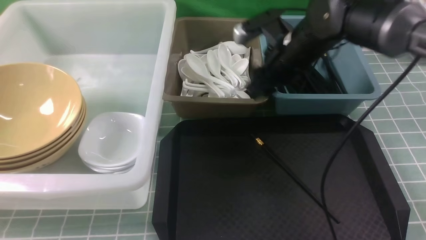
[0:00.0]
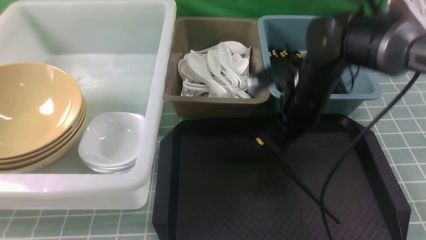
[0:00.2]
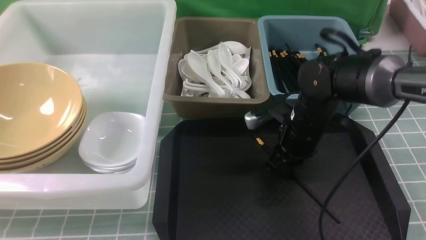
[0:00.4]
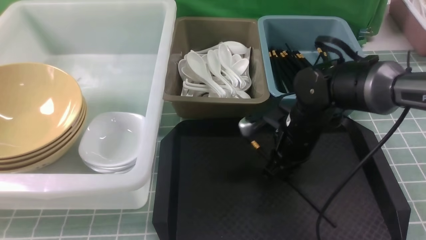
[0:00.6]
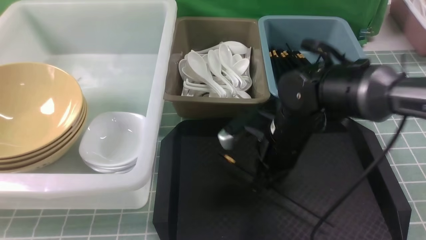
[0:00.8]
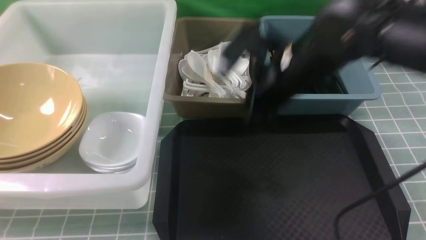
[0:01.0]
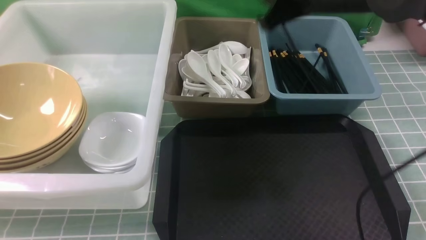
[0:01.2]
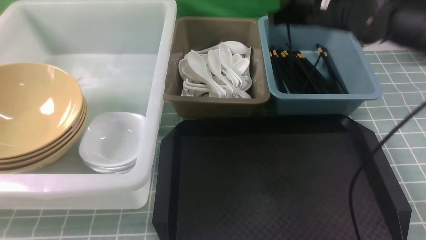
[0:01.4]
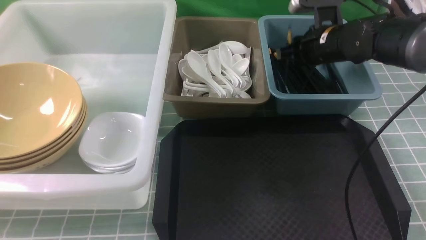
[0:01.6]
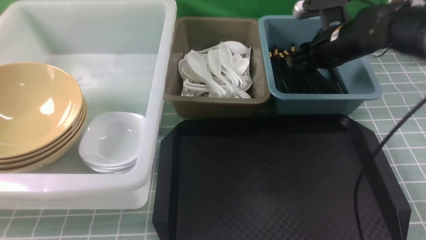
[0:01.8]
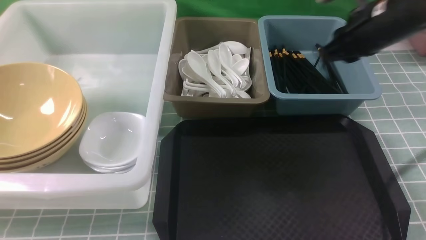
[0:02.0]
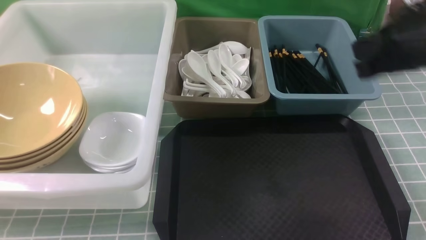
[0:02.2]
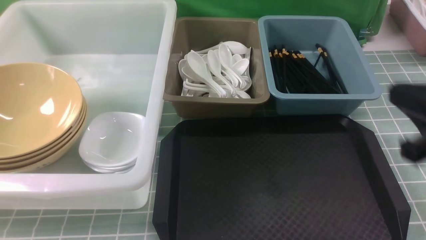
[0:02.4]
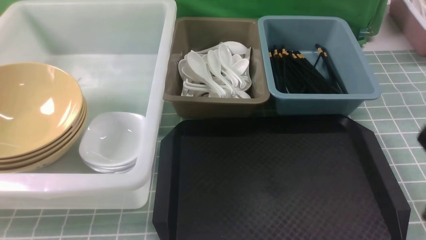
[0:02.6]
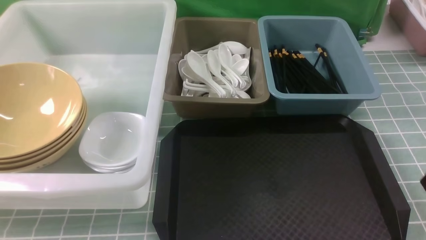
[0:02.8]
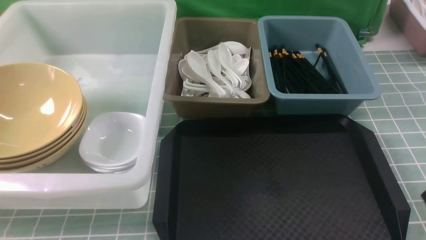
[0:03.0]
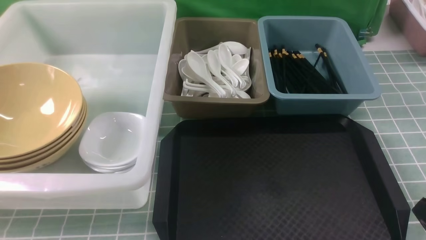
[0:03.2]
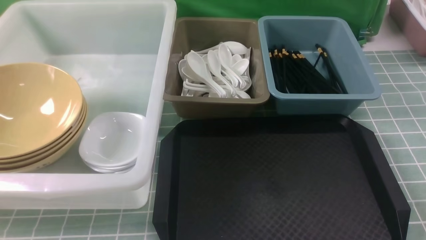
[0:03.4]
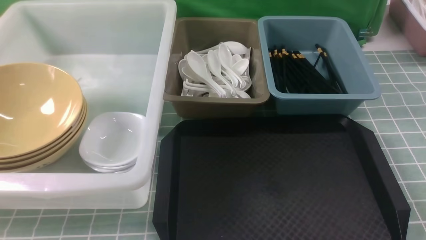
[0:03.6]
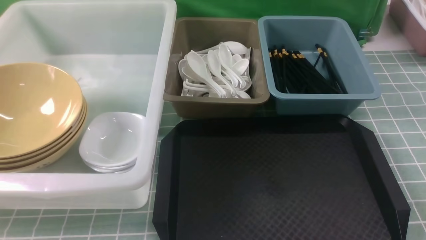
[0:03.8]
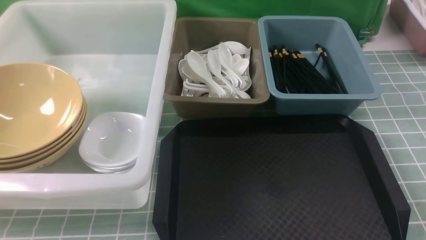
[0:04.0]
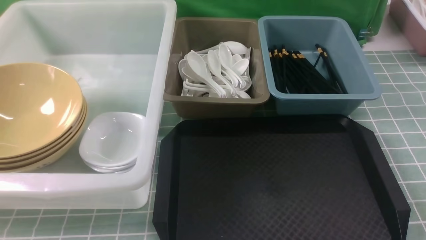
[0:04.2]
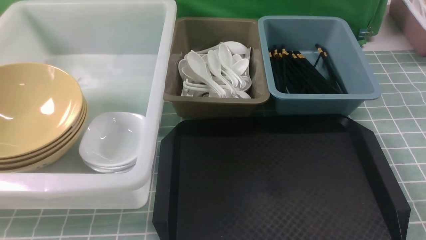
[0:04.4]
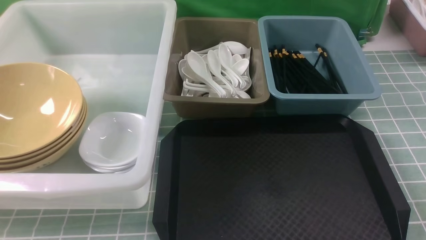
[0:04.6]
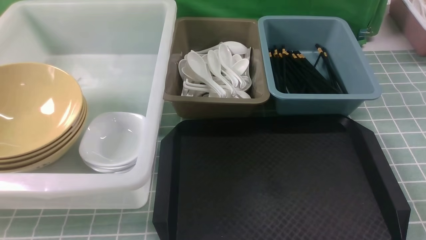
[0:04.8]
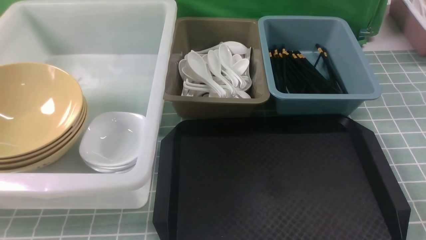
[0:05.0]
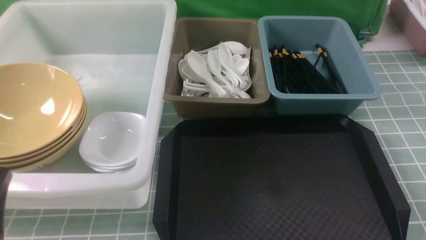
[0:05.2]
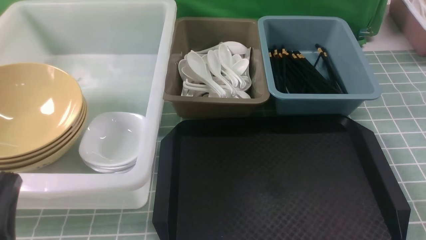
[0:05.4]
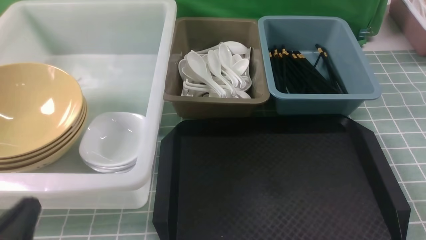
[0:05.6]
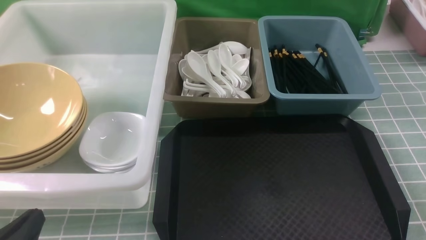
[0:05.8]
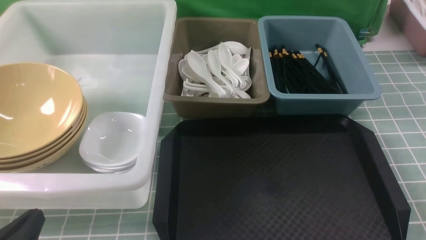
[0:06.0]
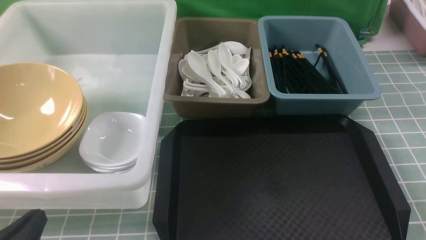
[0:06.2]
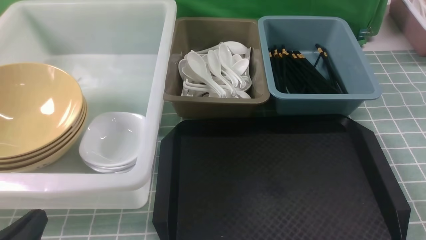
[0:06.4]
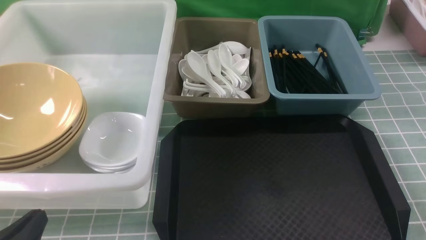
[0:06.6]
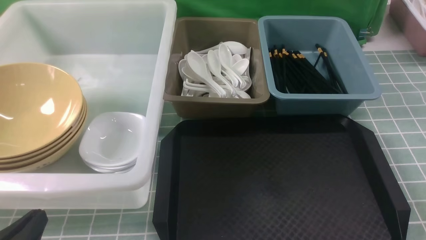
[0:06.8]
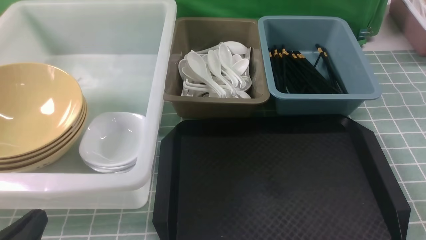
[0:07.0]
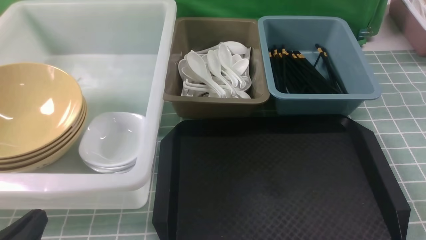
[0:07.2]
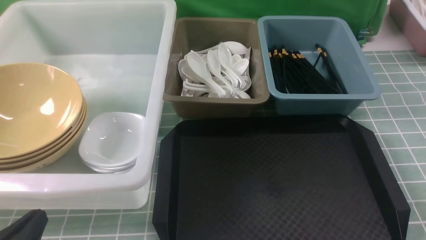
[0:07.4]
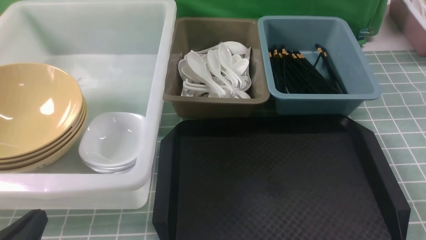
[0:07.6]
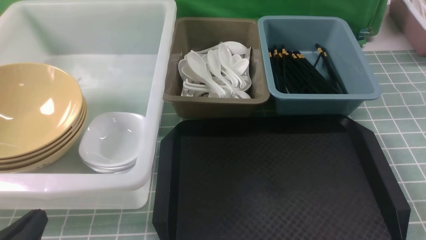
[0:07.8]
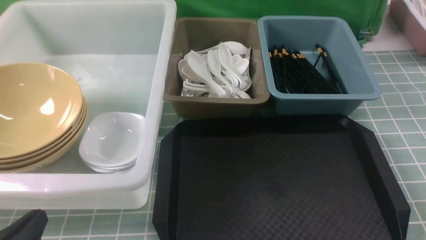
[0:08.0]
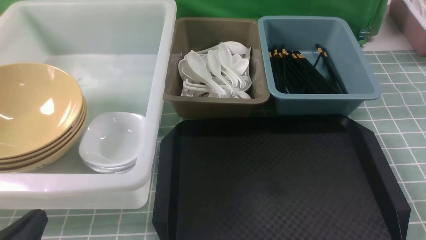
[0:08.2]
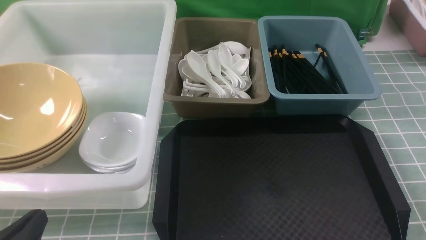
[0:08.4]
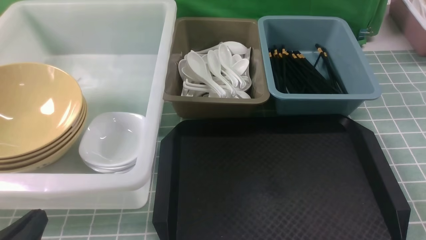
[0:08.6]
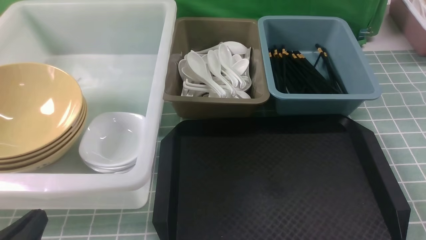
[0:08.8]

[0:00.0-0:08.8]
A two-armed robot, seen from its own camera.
Task of the whole recording: on blue table put chopsticks spoon bowls plates into blue grey white boxes.
Step, 0:00.2 to 0:01.0: use the right arm to grab a chopstick.
Step, 0:01.2 to 0:01.6: use the right arm to put a chopstick into the small storage box on the right.
0:00.0 to 0:01.4: The right gripper moves upward, approximately 5 cm, and closes up.
0:01.4 to 0:03.0: The right gripper travels backward by some 35 cm.
0:04.4 to 0:05.8: The left gripper travels downward by about 10 cm.
0:05.8 to 0:08.8: The two grippers keep their place.

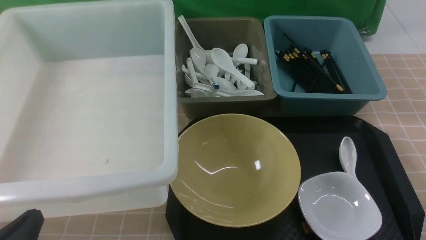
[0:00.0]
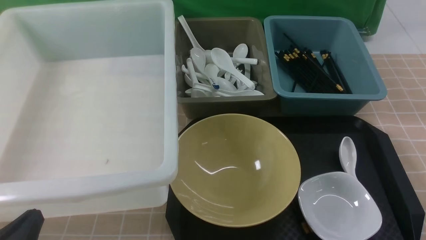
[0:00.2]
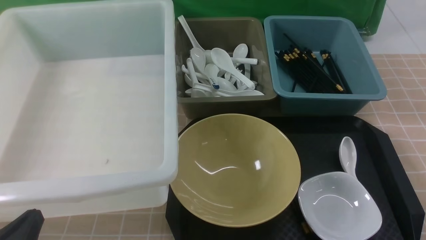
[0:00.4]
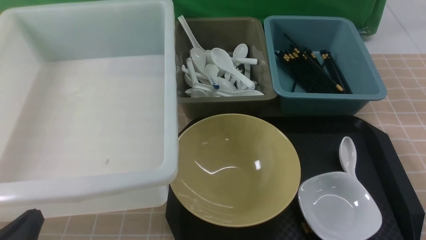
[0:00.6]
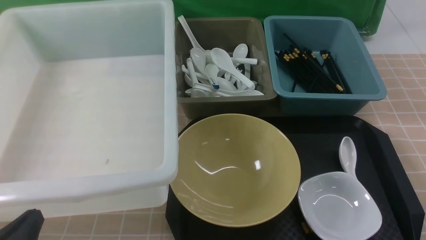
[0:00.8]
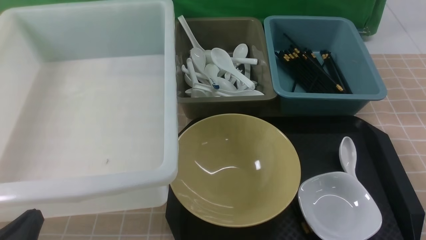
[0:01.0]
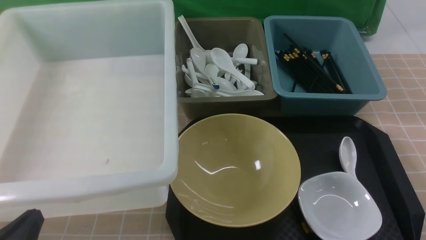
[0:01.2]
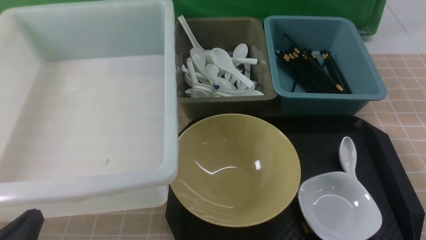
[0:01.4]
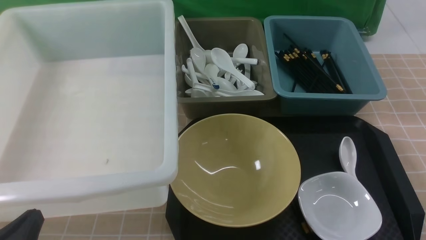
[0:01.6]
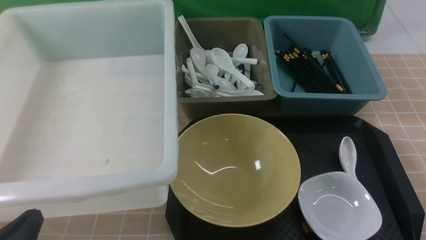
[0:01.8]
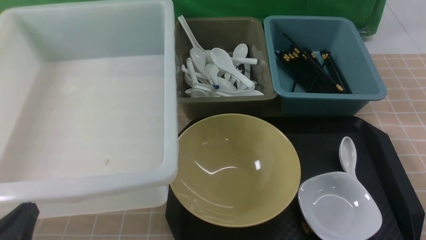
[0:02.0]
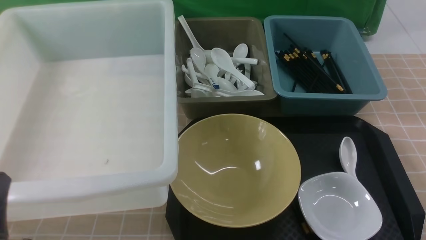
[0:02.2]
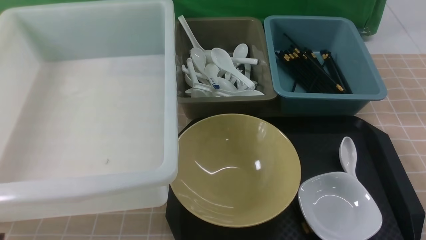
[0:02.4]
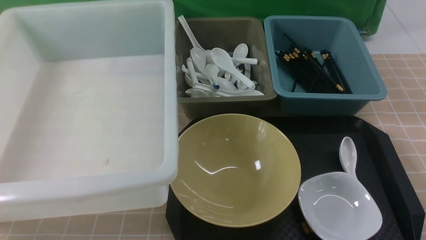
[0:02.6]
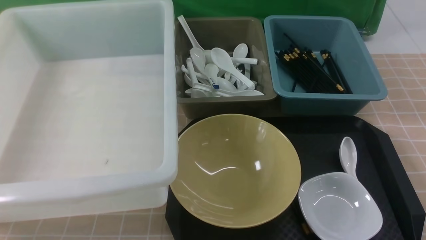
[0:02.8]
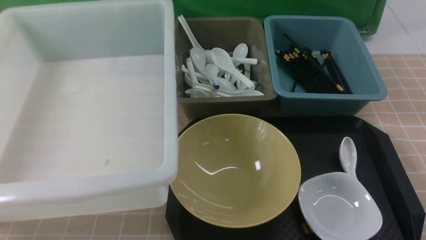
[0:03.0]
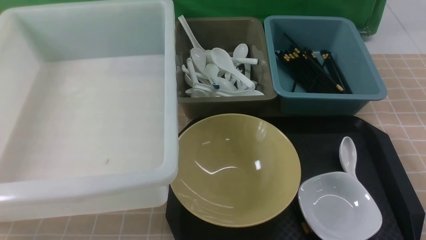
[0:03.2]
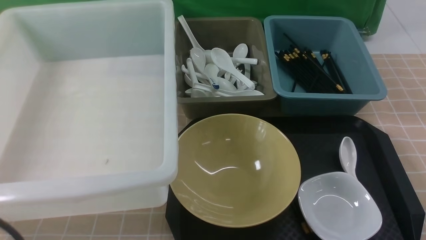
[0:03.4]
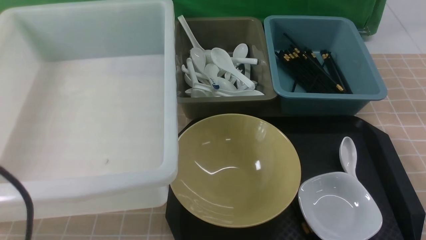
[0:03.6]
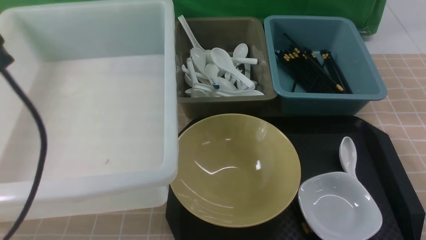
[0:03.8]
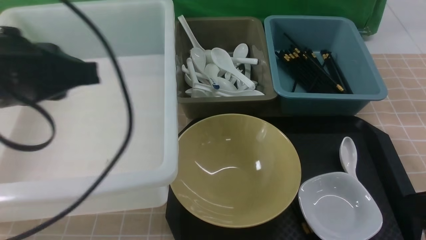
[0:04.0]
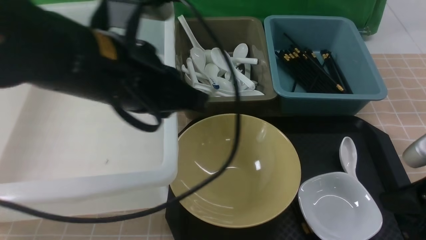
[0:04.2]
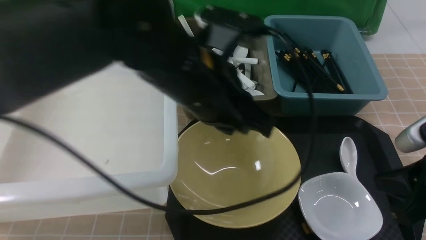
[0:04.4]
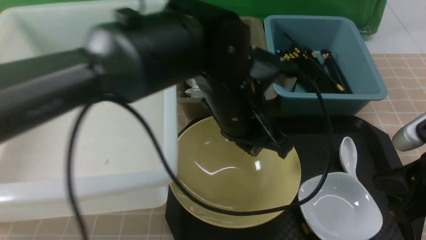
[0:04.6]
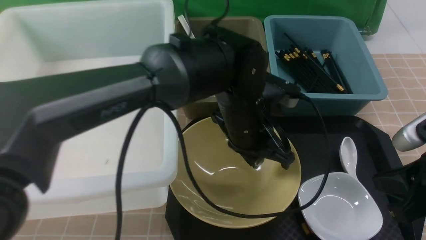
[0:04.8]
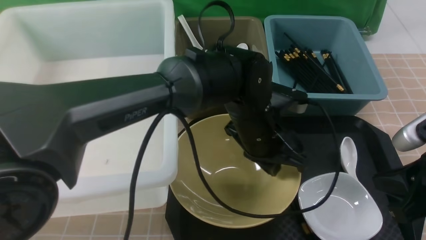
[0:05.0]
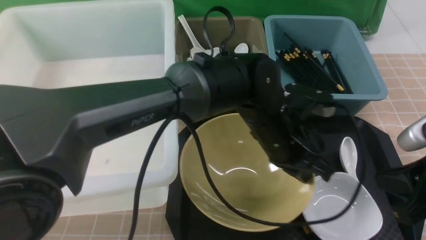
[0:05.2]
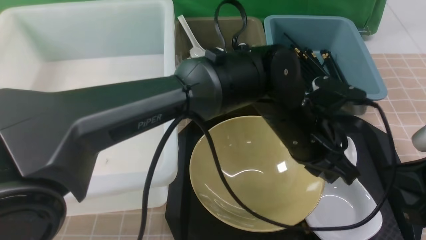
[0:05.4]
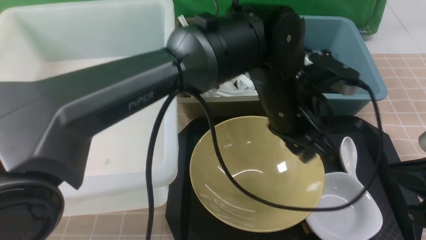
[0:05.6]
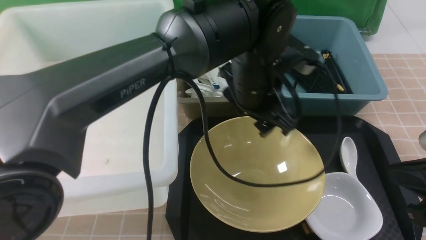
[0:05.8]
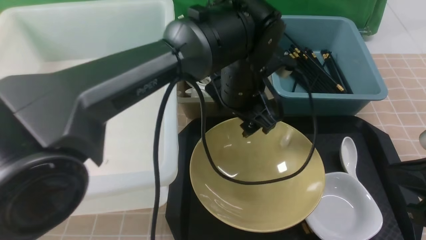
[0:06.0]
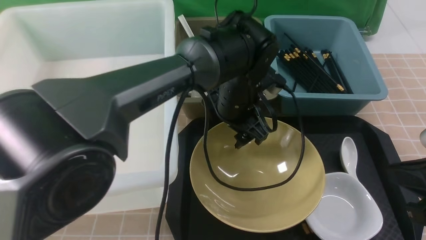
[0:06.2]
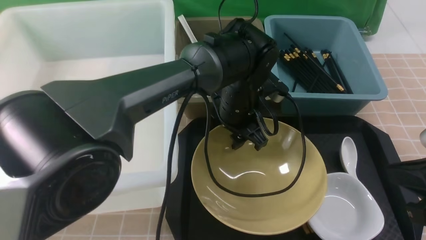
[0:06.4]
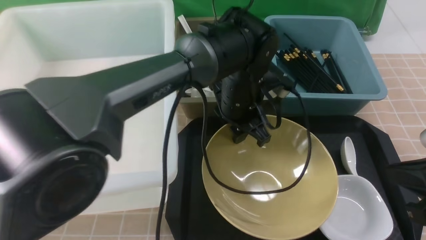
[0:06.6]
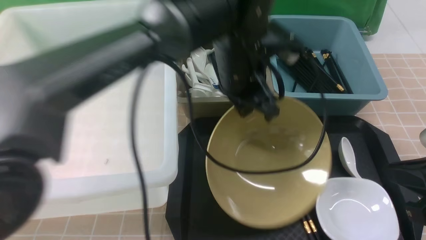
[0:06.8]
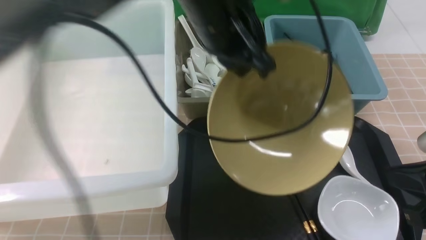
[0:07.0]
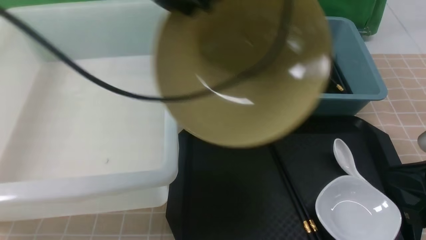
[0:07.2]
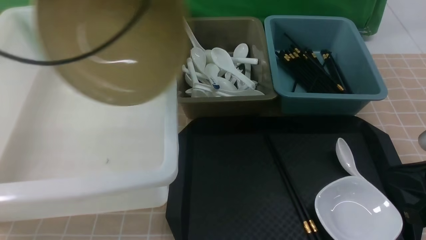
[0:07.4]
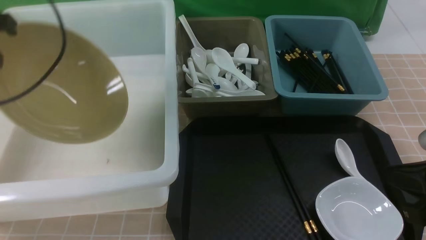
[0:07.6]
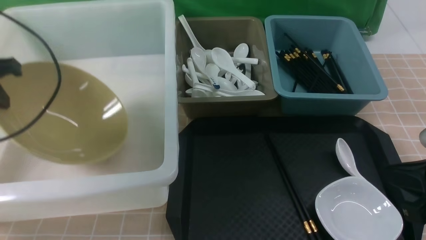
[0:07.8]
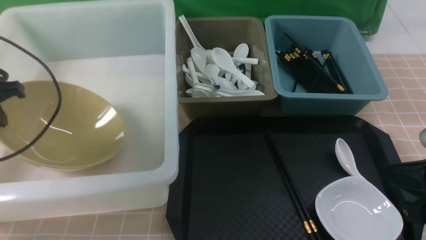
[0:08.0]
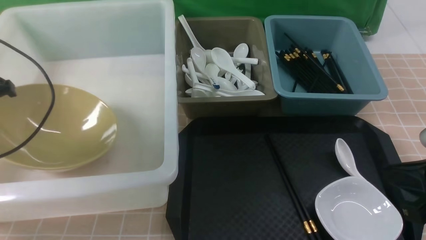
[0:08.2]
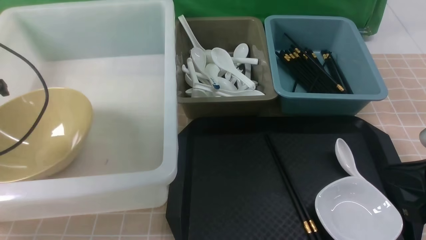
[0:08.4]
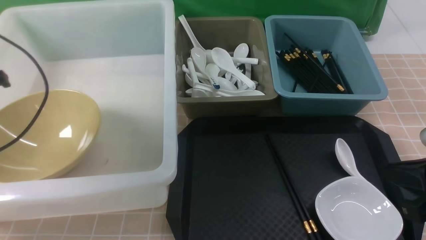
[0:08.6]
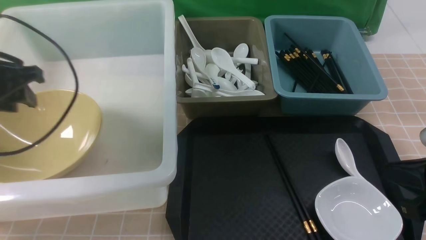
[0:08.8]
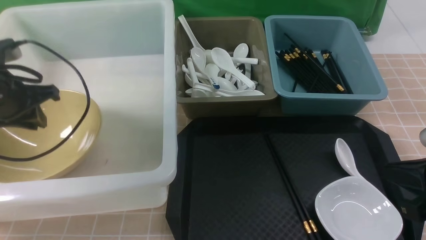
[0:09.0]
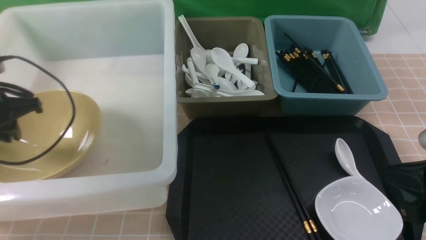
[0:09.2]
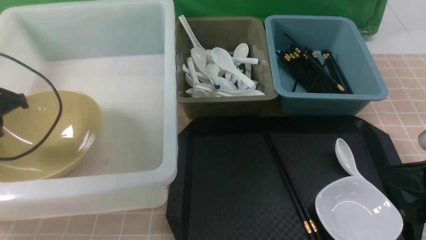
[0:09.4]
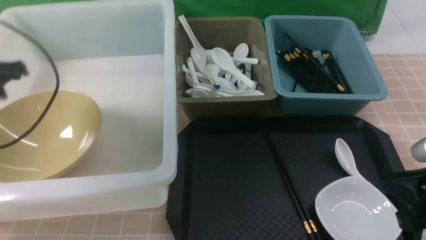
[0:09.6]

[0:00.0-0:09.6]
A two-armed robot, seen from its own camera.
Task of the whole recording: on brown table put chopsticks spoon bowls plates into blue grey white boxes.
Step, 0:00.0 to 0:07.2: use the left arm to grab the yellow noodle bowl on the left.
Step, 0:07.4 to 0:08.6: use the left arm to put the noodle bowl into the large storage box on the left.
0:00.0 to 0:01.6: The two grippers keep their place.
0:01.6 to 0:03.2: The left gripper moves upward, about 15 cm.
0:03.2 to 0:04.8: The left gripper heads to the right and forward, covering some 35 cm; the right gripper moves forward and downward, some 15 cm.
0:04.8 to 0:06.4: The left gripper shifts some 5 cm forward, and opens its fingers.
0:06.4 to 0:08.0: The left gripper goes some 40 cm to the left, and closes up.
0:08.0 to 0:09.6: The left gripper opens, then closes again.
